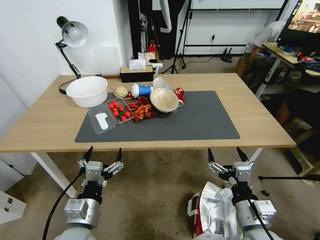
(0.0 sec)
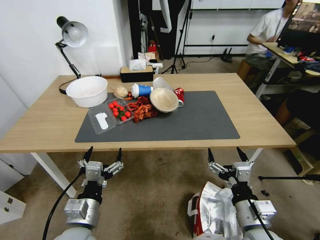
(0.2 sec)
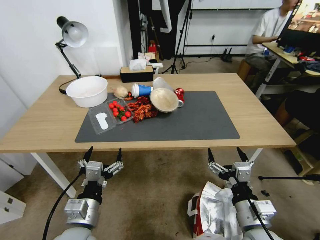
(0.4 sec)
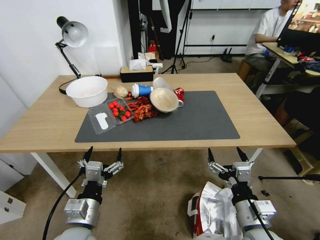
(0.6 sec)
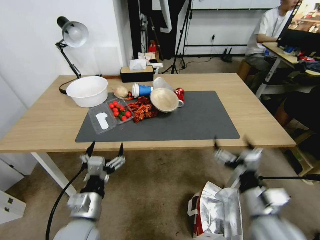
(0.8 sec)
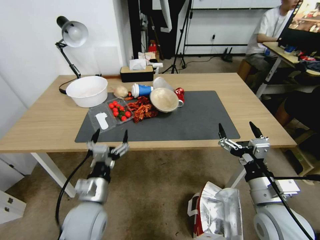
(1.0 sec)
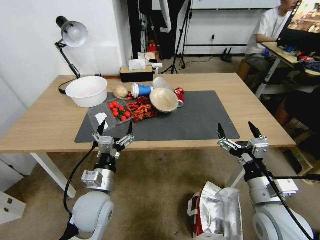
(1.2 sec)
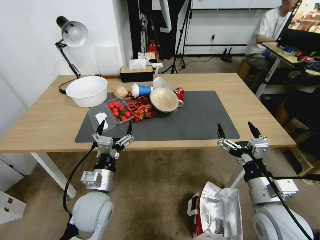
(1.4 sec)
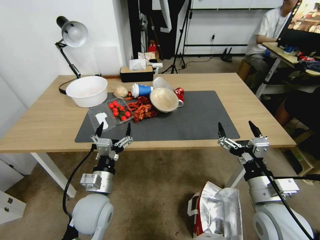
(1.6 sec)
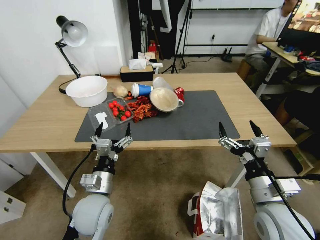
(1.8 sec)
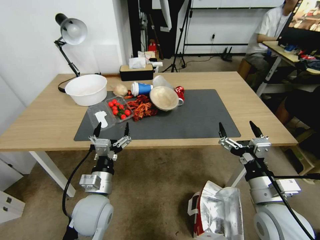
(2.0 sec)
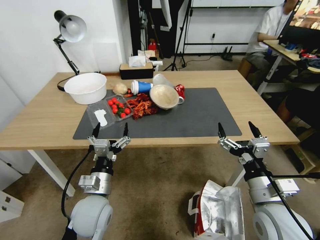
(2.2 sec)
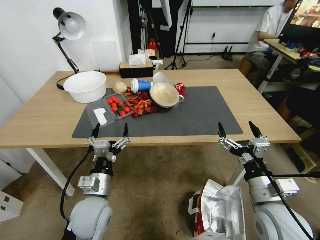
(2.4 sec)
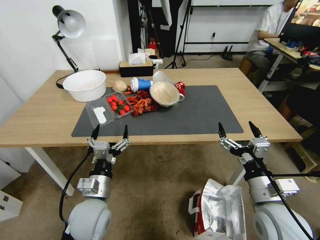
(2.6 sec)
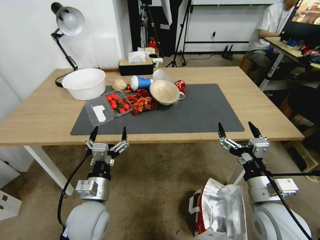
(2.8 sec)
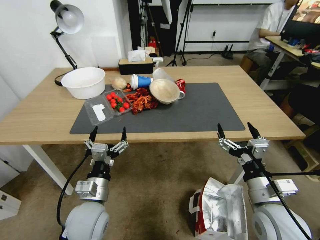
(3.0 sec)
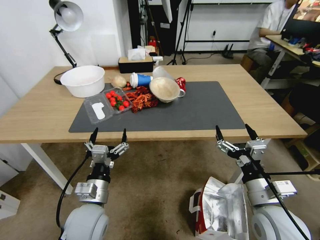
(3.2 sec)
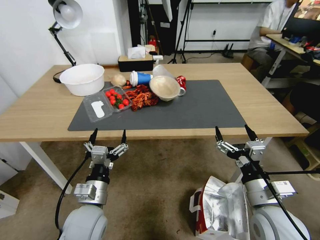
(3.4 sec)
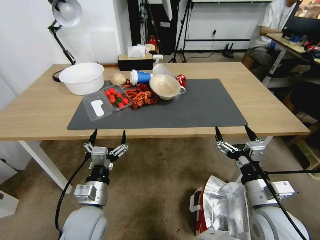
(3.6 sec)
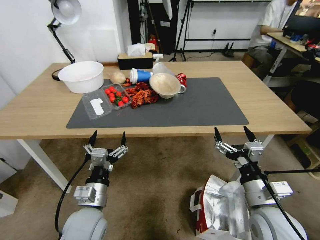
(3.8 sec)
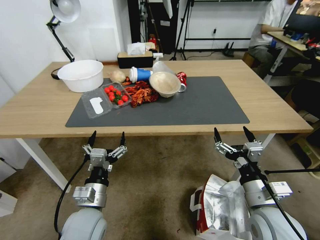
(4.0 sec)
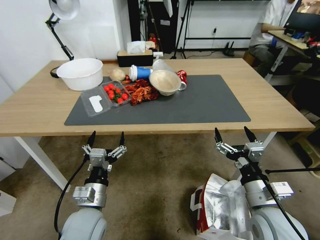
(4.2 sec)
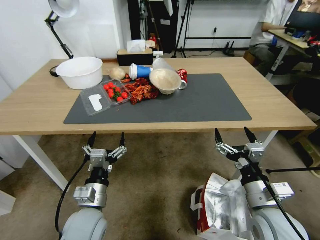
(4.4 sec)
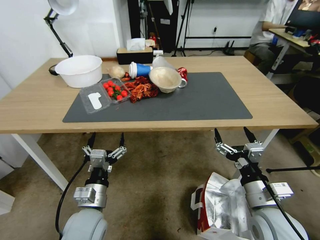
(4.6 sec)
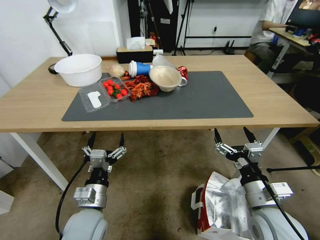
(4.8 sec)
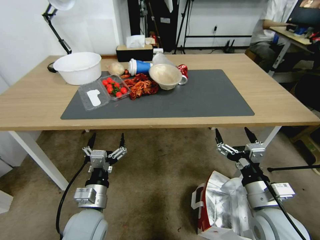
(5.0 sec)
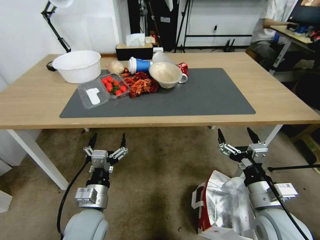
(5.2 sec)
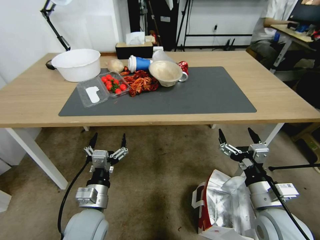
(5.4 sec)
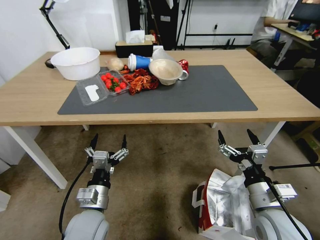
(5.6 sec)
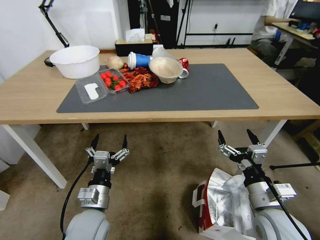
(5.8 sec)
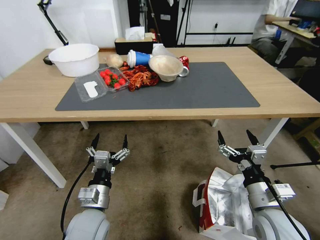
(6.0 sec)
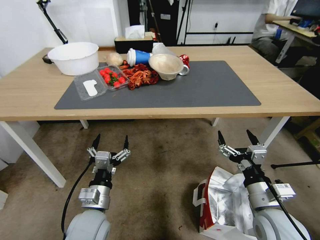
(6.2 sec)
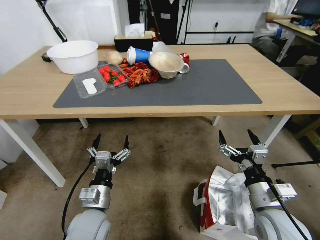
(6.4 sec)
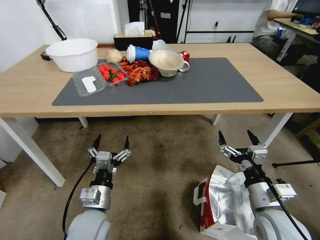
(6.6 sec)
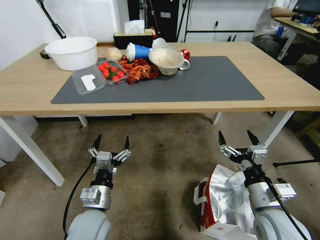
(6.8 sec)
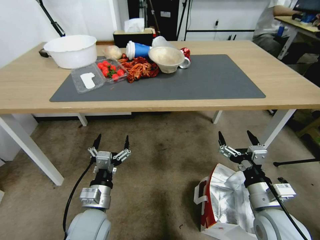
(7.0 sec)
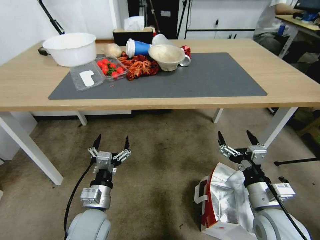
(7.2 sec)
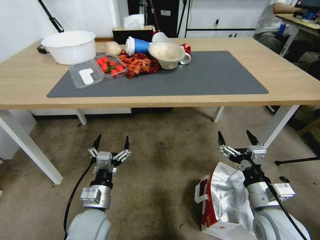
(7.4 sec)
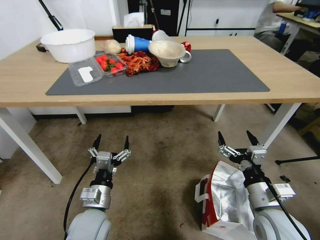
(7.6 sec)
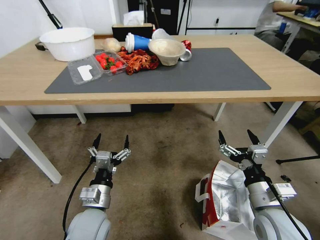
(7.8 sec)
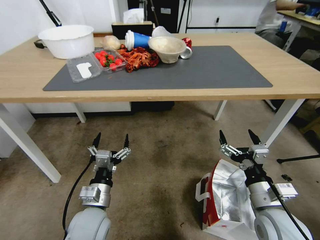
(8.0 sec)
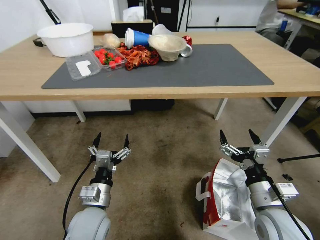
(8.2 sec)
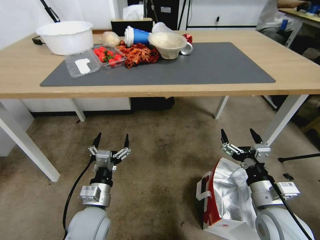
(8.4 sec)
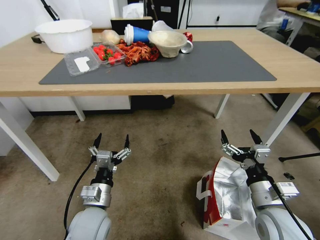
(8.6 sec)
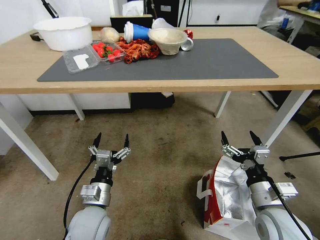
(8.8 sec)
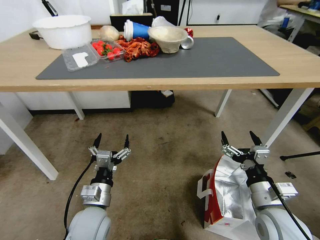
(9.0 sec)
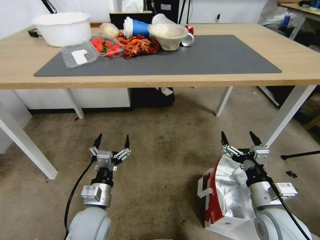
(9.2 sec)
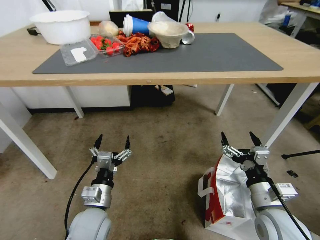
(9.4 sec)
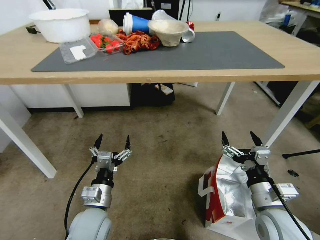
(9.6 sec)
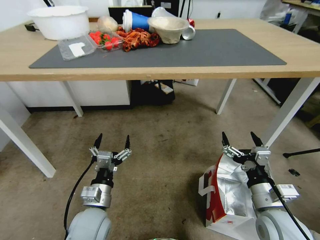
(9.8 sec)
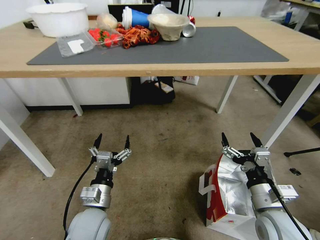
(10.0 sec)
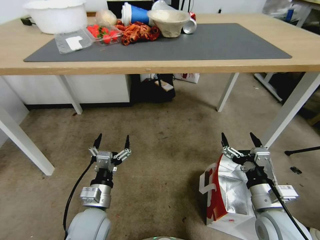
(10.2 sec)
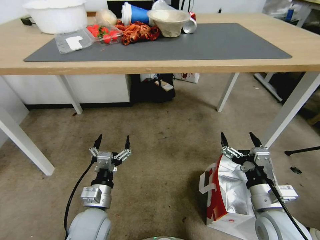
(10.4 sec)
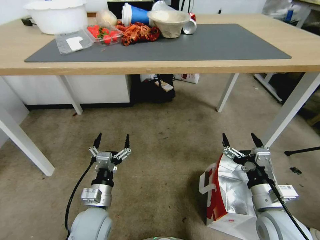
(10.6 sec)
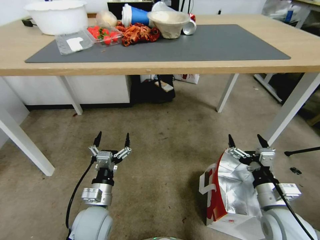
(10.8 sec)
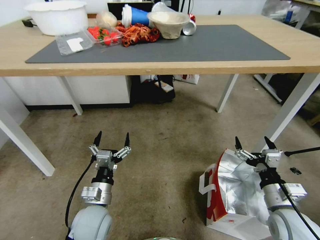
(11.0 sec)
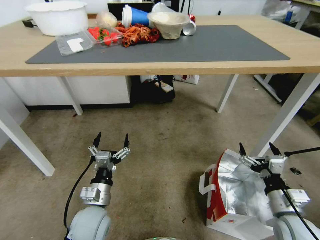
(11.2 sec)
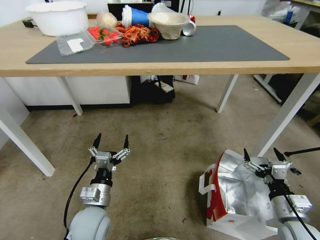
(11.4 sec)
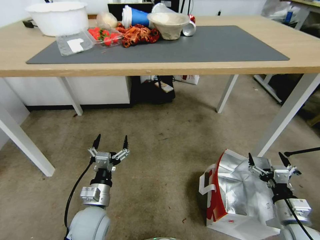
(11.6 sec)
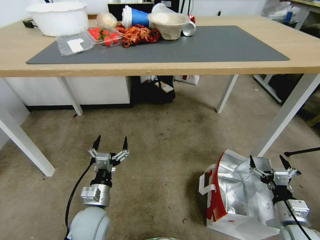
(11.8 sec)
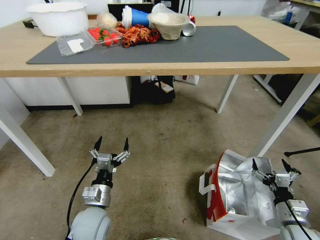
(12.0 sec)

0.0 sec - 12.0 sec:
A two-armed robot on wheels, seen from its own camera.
Task of the whole recording: Pick up the food delivery bag from the floor and place it on the table.
10.4 sec - 12.0 sec: The right gripper moves to the right and downward, approximately 15 cm.

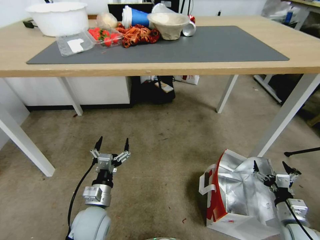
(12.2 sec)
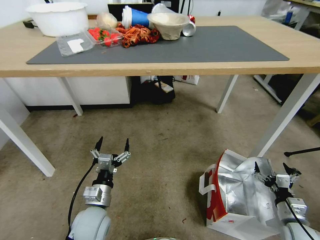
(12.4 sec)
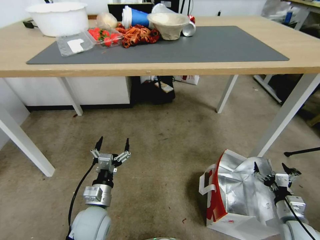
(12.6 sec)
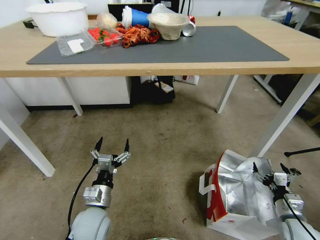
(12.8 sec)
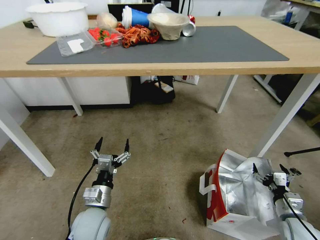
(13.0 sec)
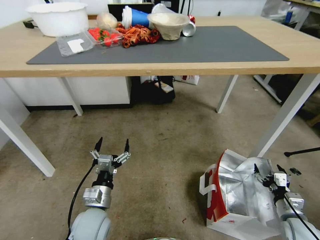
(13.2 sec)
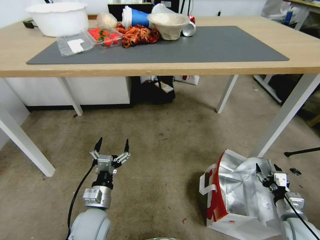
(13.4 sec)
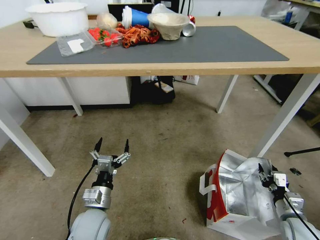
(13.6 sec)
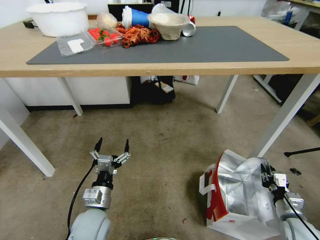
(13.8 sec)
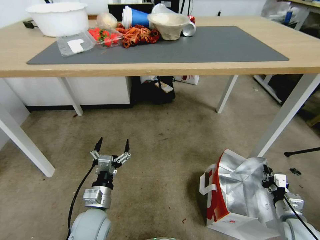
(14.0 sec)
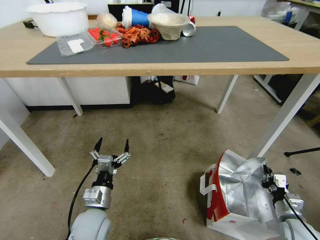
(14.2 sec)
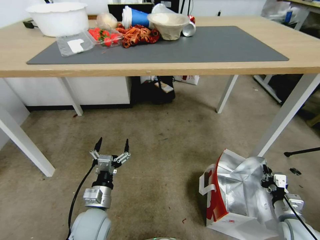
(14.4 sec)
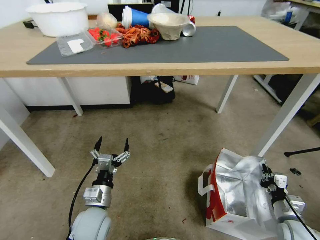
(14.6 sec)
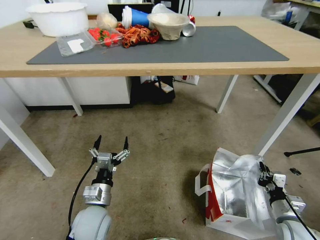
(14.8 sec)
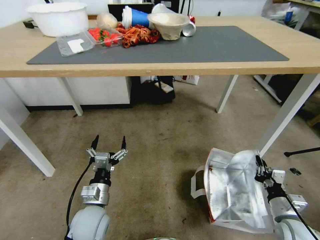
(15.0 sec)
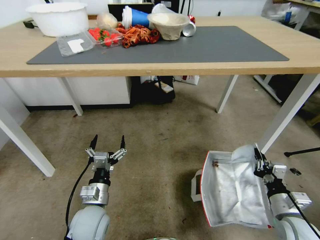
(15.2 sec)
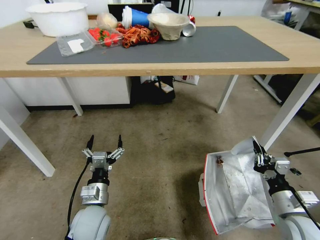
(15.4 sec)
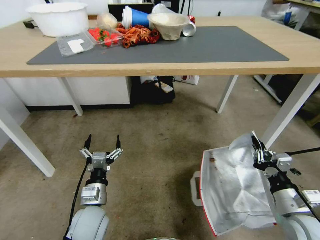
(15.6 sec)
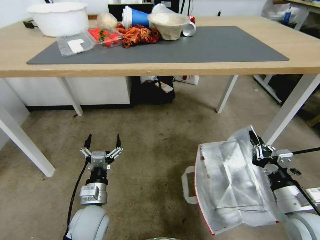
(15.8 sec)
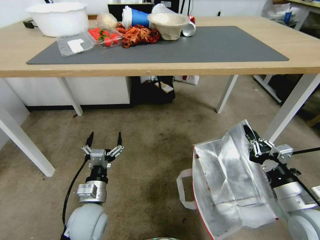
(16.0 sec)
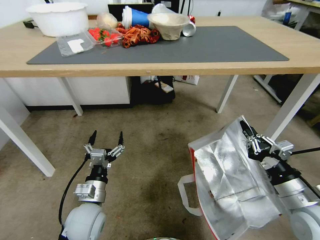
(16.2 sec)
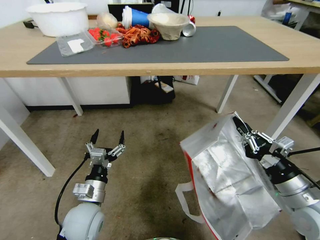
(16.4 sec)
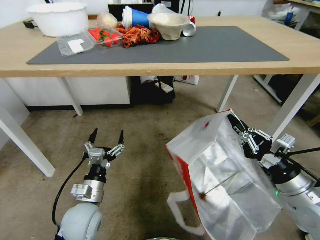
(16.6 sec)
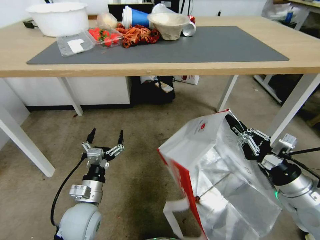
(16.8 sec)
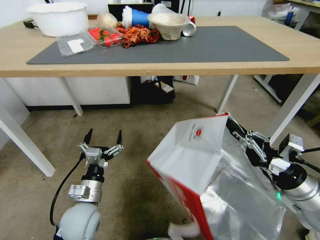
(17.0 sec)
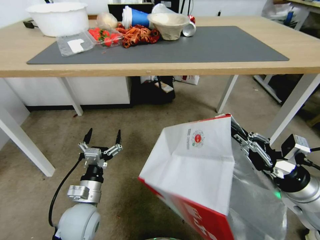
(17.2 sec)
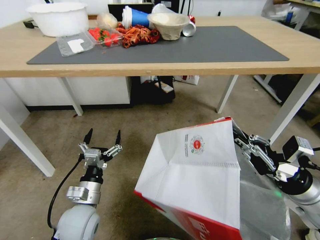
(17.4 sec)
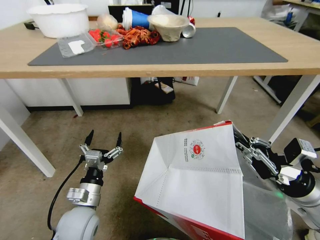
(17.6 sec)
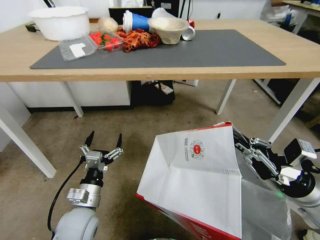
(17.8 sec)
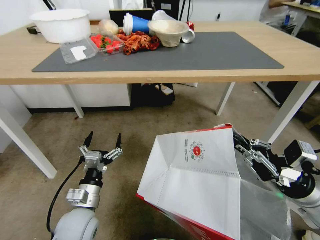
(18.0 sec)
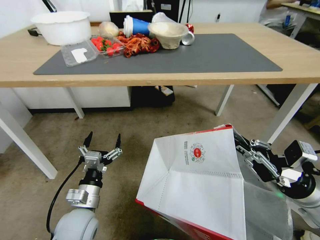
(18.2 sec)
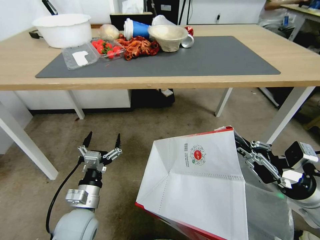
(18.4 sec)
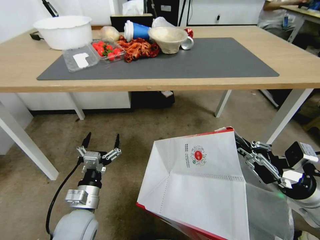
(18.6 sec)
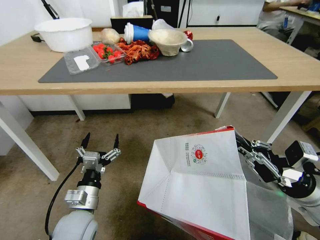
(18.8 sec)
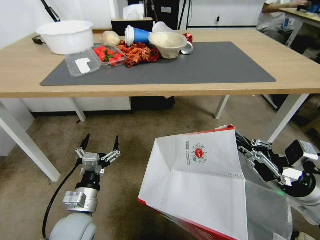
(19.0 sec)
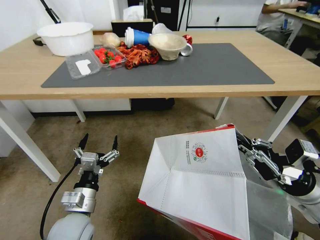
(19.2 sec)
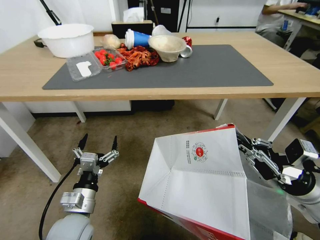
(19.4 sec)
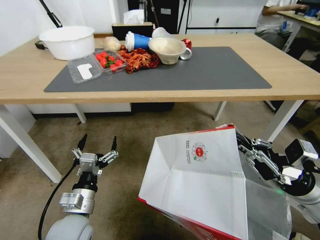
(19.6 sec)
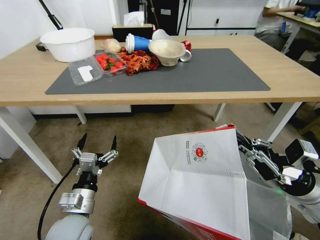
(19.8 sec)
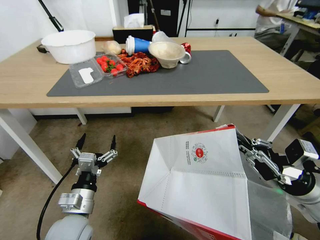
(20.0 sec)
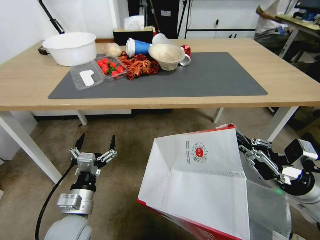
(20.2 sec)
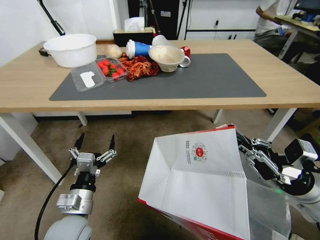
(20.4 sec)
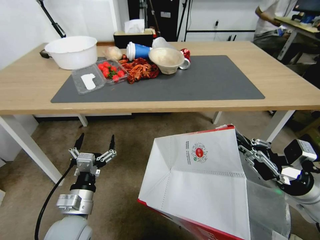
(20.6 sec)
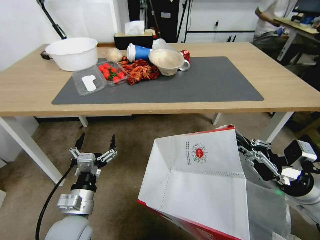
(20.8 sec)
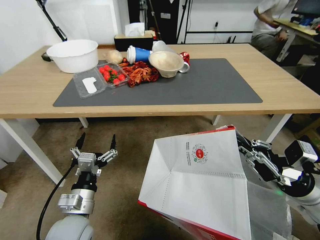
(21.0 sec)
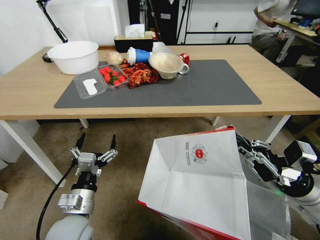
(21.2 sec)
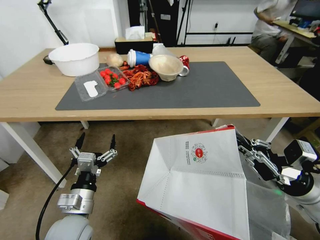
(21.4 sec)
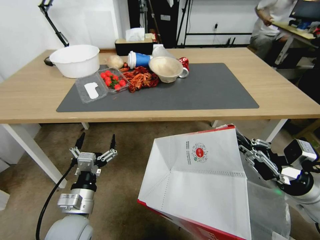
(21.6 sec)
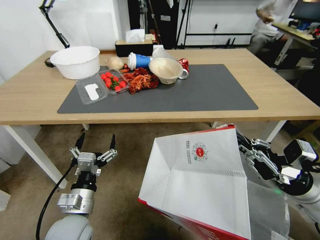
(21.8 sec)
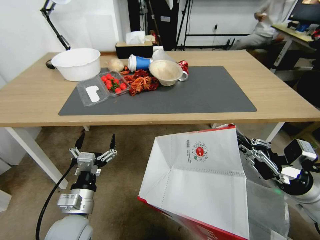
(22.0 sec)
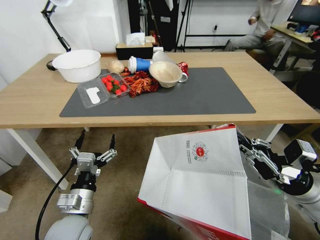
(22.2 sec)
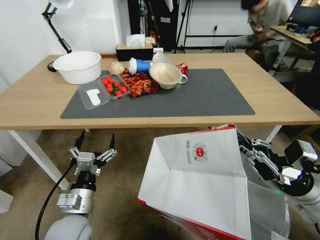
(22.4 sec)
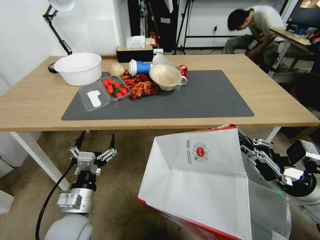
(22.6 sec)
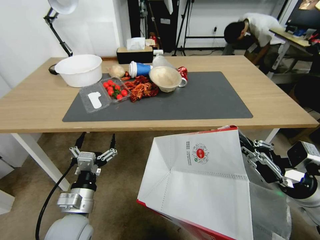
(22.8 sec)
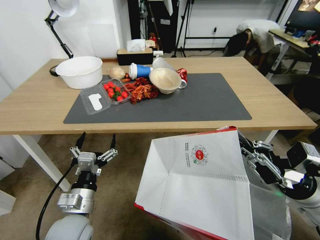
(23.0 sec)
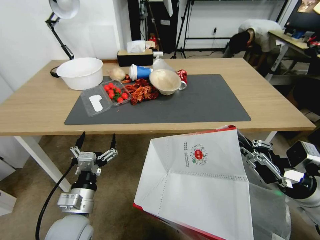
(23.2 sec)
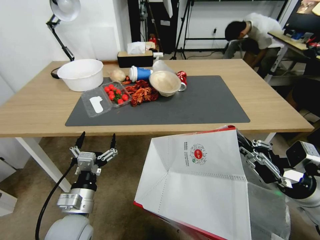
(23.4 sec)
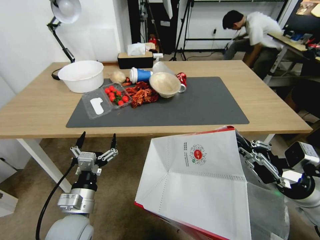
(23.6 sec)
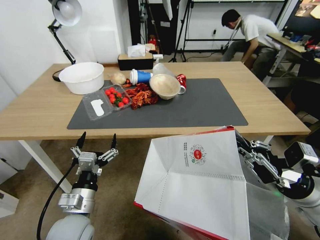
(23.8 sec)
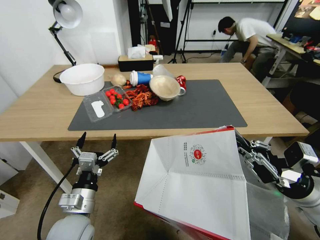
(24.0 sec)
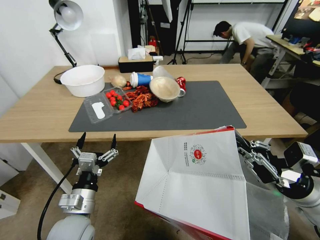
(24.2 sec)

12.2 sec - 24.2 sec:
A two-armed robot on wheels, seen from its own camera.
Task of the whole recording: Pick up the food delivery bag from the floor and place it on the table.
12.2 sec - 13.8 sec: The right gripper closes.
13.8 sec - 15.2 sec: The right gripper travels upward and to the left by about 10 cm.
15.2 sec - 16.6 sec: The right gripper shifts roughly 15 cm upward.
